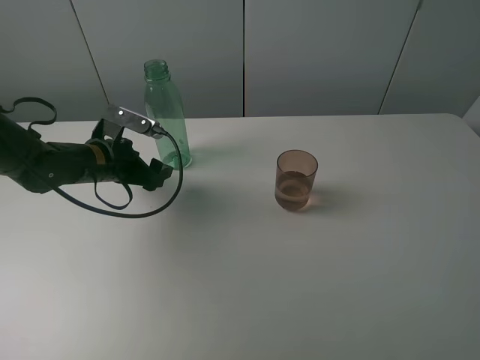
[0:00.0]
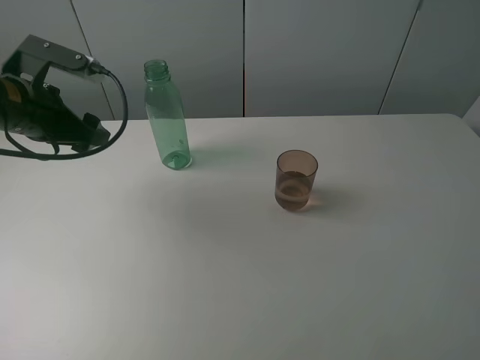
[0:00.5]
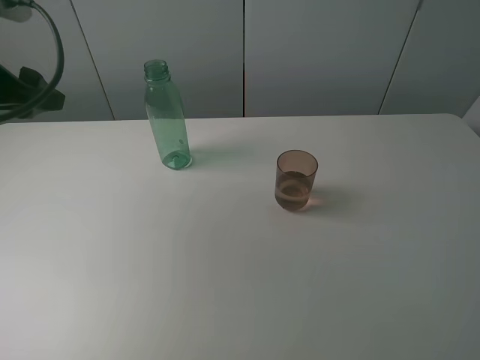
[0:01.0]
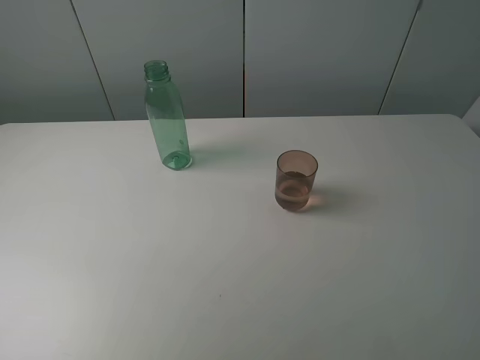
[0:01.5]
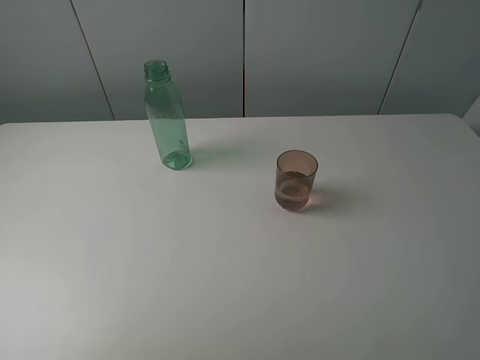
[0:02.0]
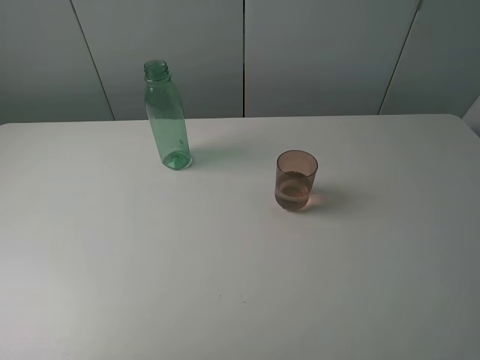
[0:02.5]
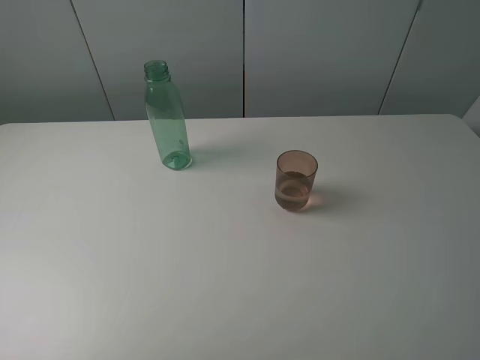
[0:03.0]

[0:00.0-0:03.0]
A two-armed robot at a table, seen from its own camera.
Task of the whole recording: pick up the bottle filled with water and pour it into the pink cup.
0:00.0 to 0:01.5: The left gripper travels upward and backward by about 30 cm.
